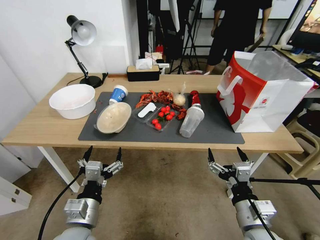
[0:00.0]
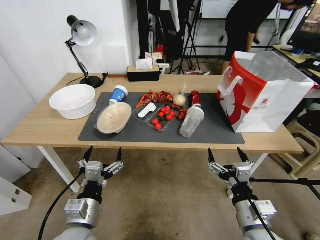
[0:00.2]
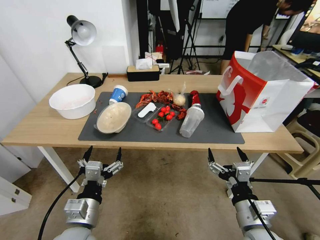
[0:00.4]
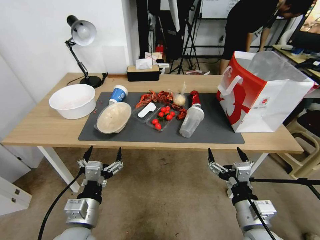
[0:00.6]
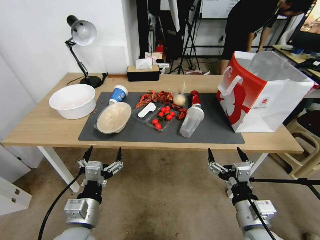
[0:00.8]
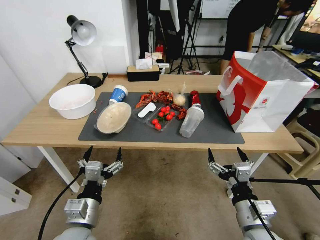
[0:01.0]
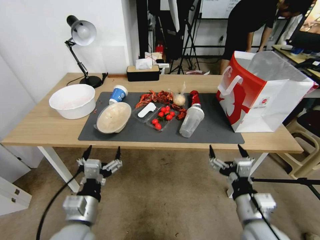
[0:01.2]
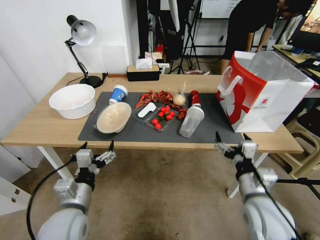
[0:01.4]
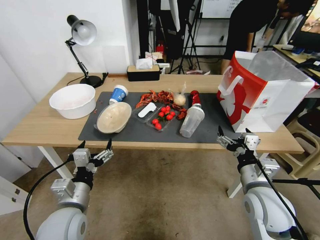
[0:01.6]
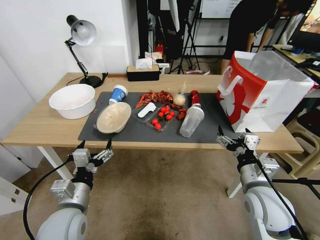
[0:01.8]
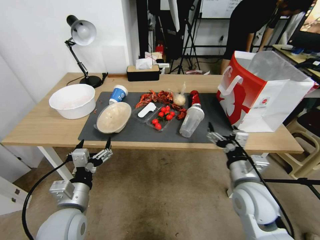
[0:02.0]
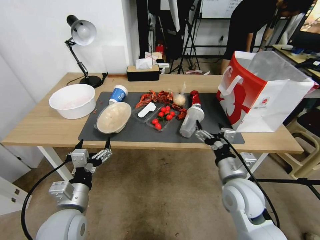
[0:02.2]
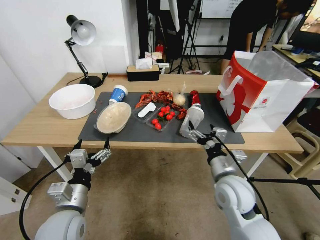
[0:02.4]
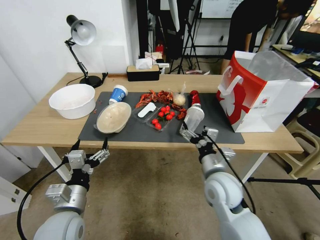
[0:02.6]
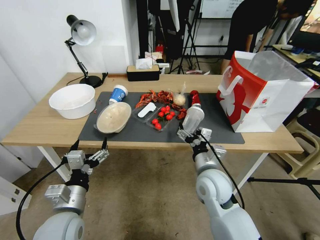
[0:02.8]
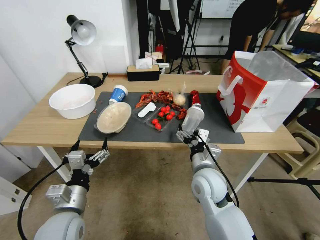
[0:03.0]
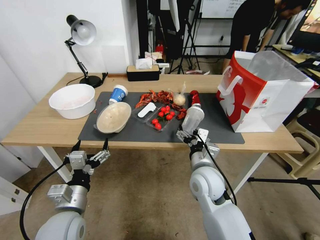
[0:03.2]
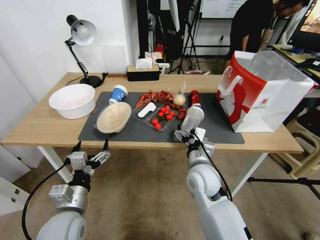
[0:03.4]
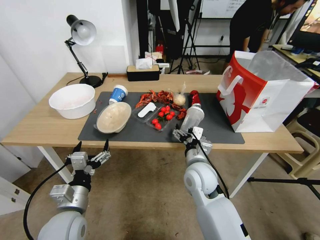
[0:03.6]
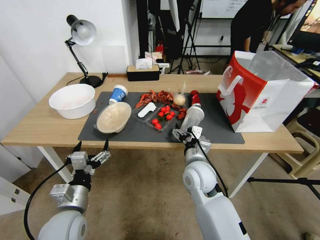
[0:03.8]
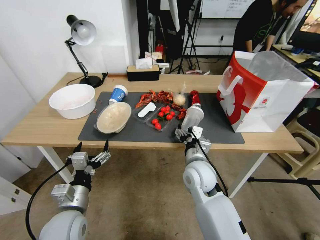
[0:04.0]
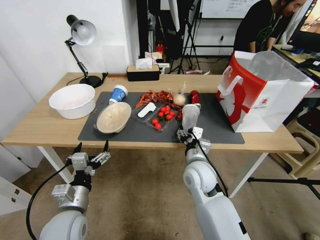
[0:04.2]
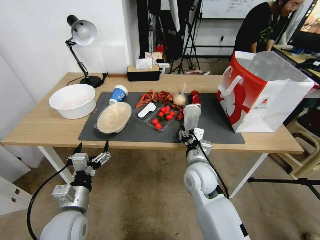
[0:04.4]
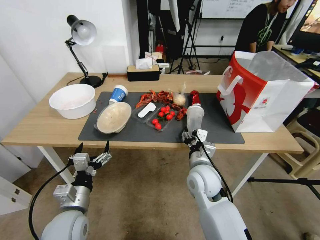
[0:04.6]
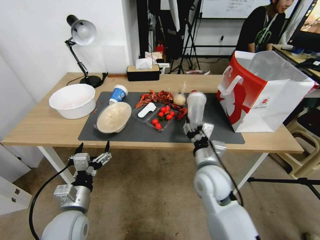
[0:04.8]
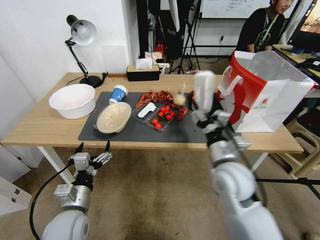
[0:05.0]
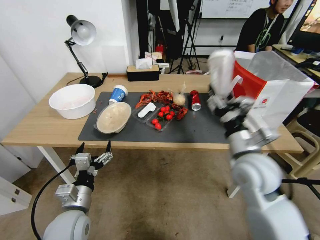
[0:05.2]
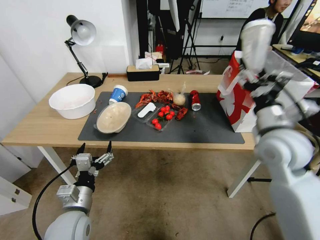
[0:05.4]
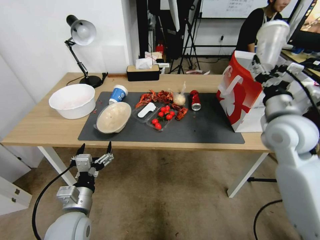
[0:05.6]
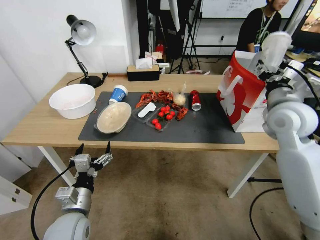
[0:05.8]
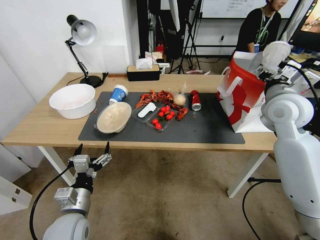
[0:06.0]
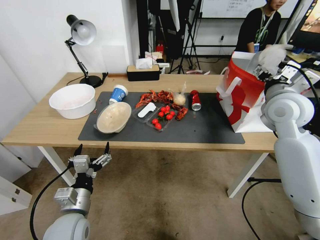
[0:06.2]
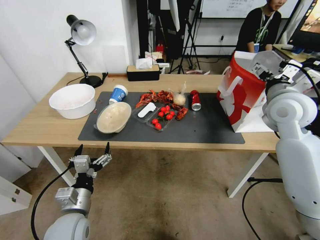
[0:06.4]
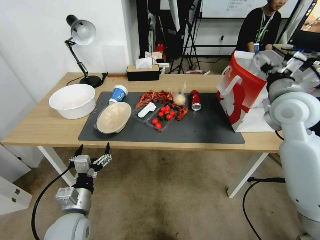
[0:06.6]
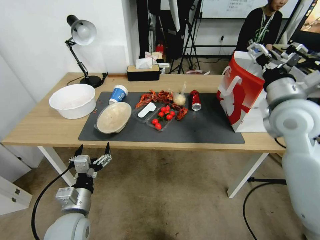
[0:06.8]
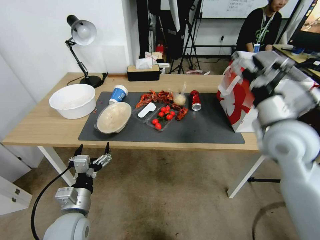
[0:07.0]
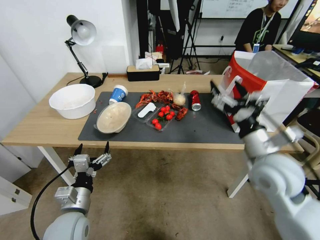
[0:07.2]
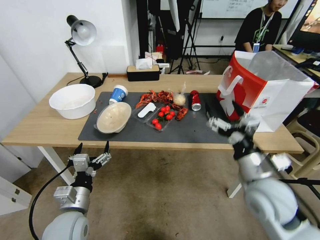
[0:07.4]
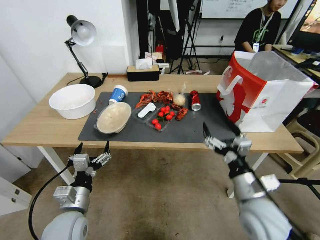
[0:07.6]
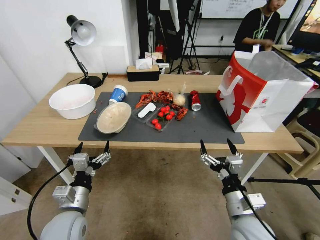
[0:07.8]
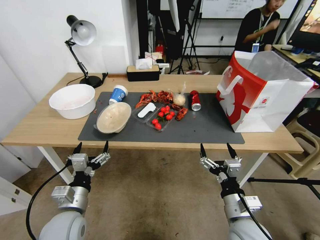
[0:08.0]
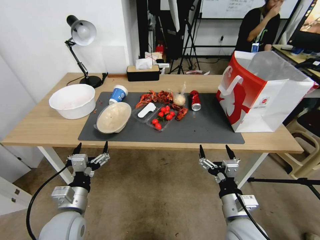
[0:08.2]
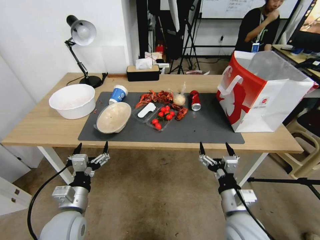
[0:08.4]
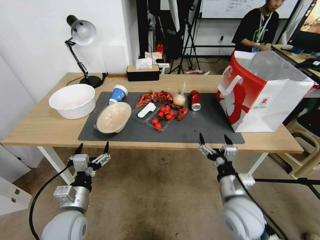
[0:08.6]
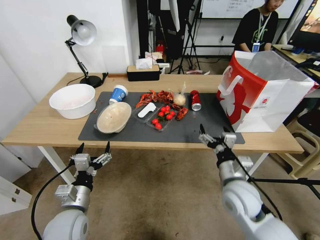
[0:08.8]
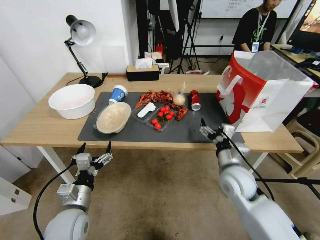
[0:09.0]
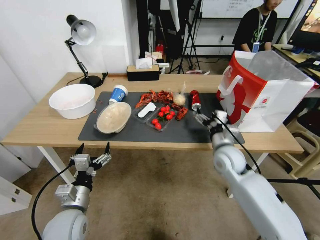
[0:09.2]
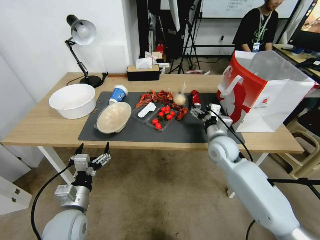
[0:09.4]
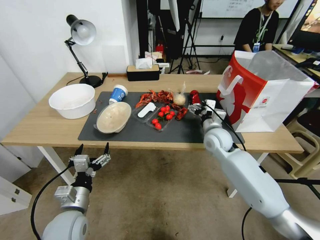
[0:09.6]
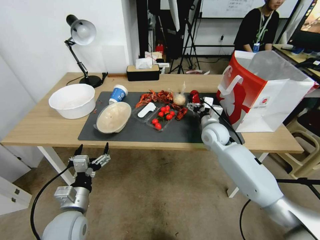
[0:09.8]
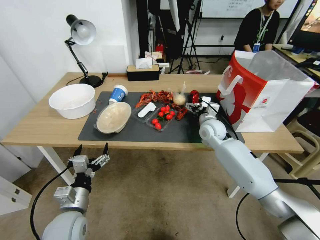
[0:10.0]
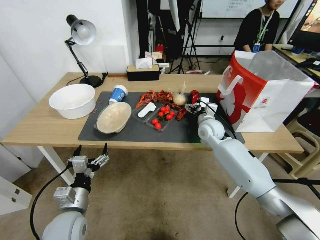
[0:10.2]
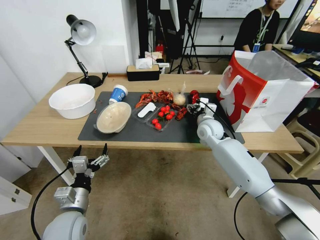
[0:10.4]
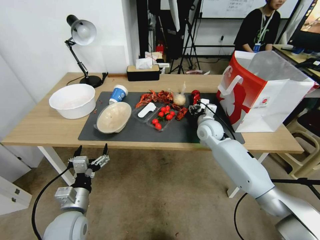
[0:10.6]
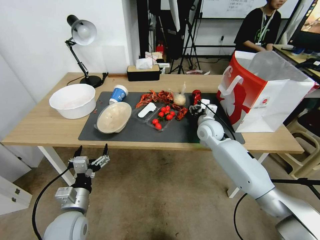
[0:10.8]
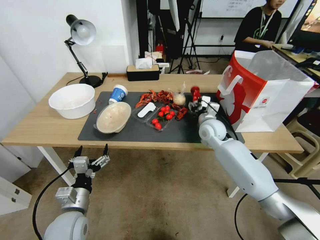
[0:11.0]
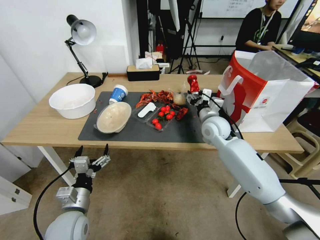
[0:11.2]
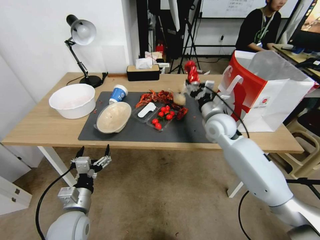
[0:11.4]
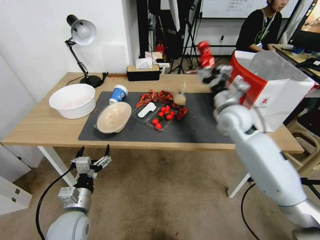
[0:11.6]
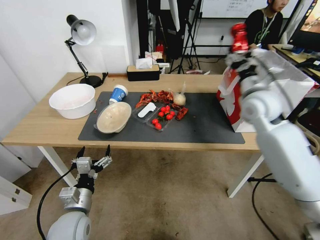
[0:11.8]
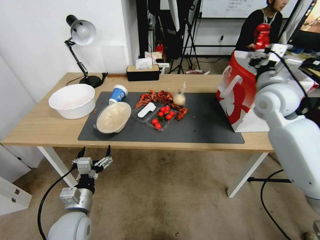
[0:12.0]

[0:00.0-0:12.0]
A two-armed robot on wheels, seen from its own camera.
0:01.6 to 0:03.0: The right gripper goes about 15 cm to the left and forward.
0:03.0 to 0:04.4: The right gripper closes.
0:04.4 to 0:06.0: The right gripper travels upward, to the right and forward by some 30 cm.
0:06.0 to 0:07.6: The right gripper heads backward and downward, covering about 30 cm, and opens up.
0:07.6 to 0:09.0: The right gripper shifts about 10 cm forward.
0:09.0 to 0:10.4: The right gripper shifts some 20 cm forward.
0:10.4 to 0:12.0: The right gripper is displaced upward and to the right by approximately 15 cm.

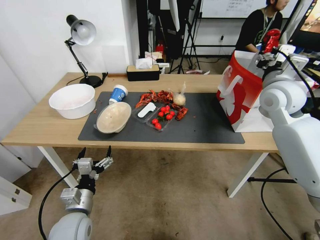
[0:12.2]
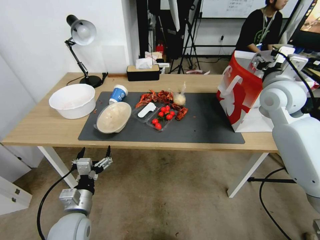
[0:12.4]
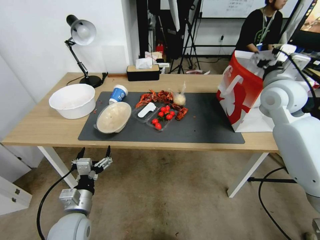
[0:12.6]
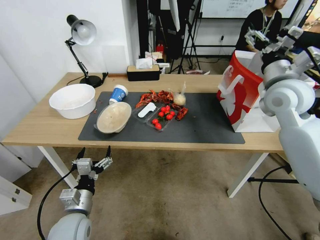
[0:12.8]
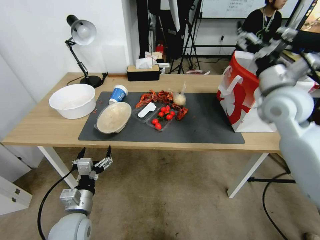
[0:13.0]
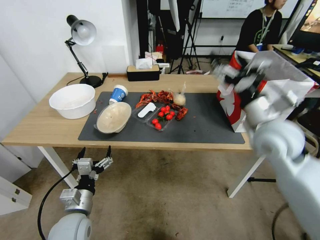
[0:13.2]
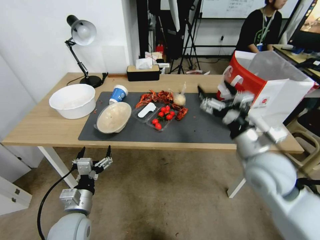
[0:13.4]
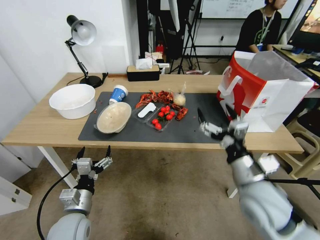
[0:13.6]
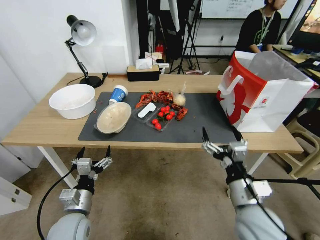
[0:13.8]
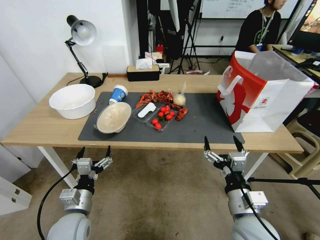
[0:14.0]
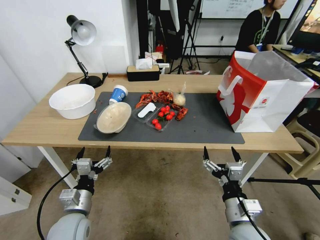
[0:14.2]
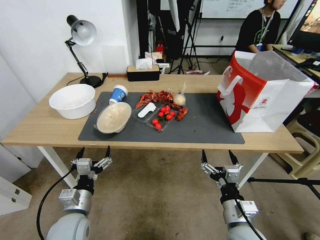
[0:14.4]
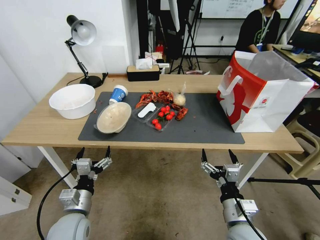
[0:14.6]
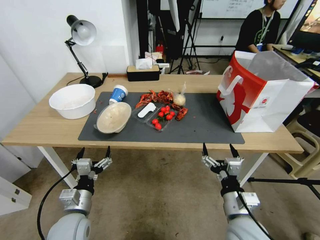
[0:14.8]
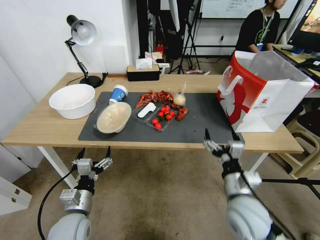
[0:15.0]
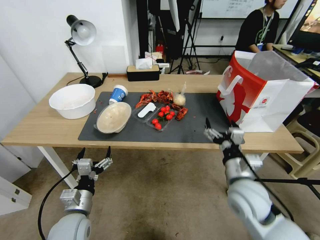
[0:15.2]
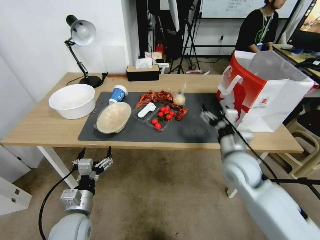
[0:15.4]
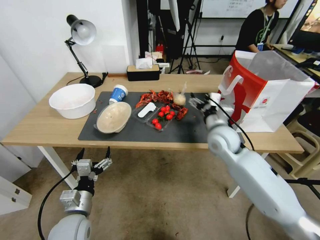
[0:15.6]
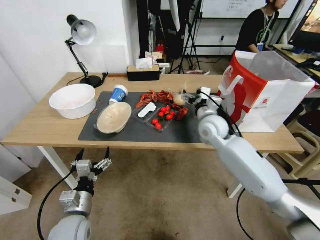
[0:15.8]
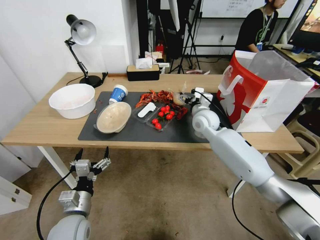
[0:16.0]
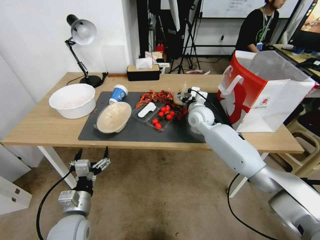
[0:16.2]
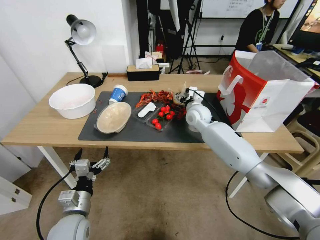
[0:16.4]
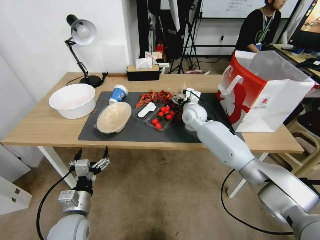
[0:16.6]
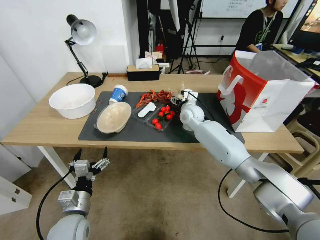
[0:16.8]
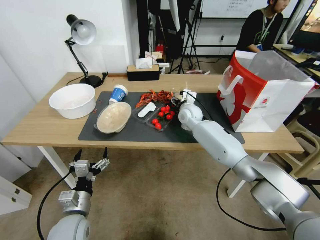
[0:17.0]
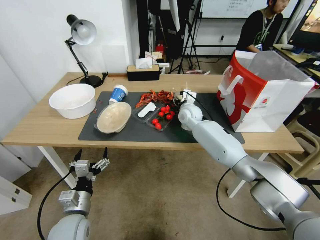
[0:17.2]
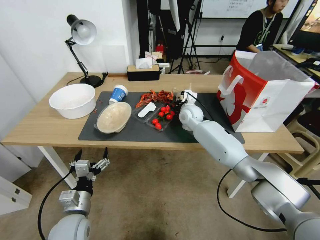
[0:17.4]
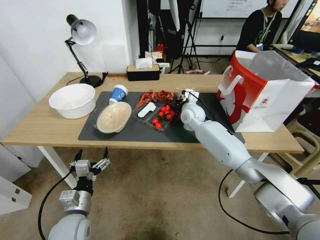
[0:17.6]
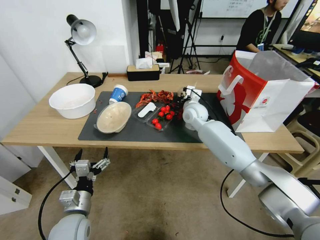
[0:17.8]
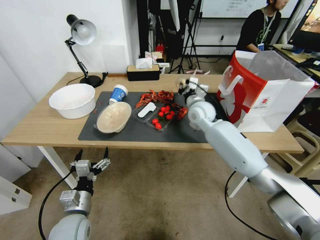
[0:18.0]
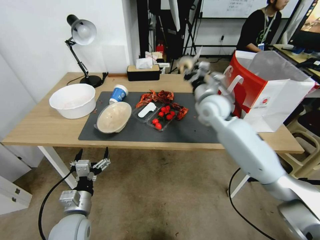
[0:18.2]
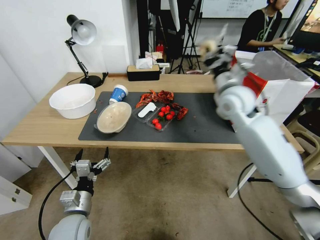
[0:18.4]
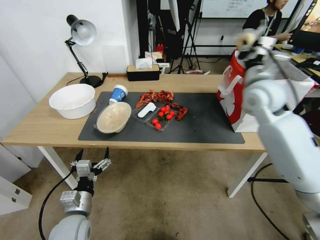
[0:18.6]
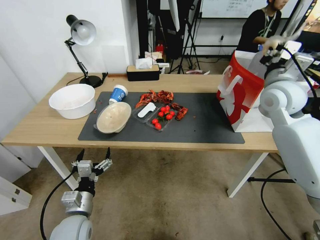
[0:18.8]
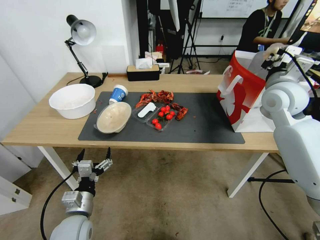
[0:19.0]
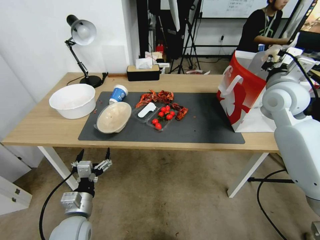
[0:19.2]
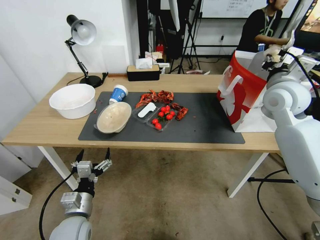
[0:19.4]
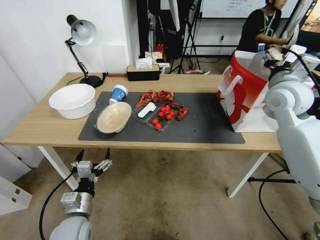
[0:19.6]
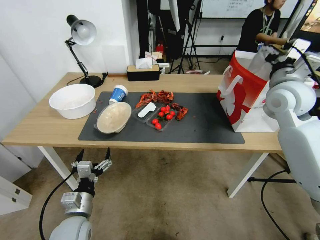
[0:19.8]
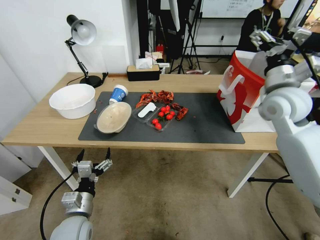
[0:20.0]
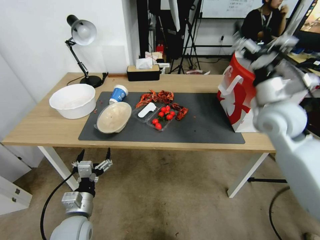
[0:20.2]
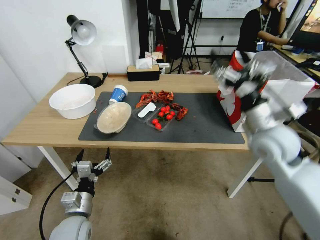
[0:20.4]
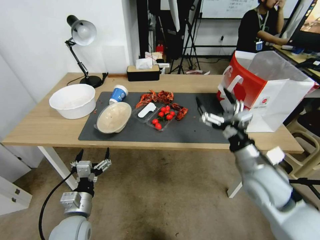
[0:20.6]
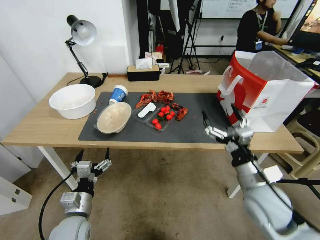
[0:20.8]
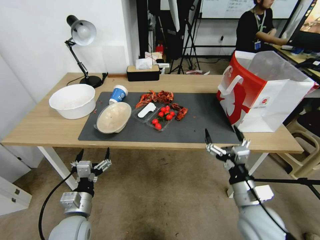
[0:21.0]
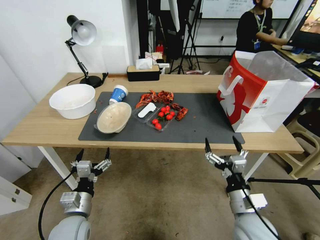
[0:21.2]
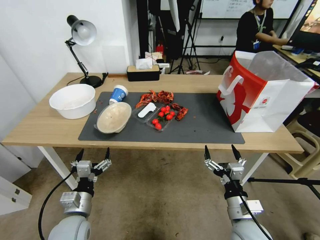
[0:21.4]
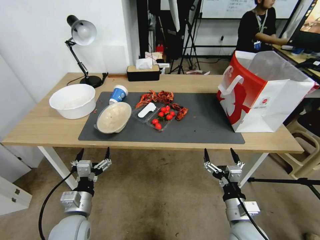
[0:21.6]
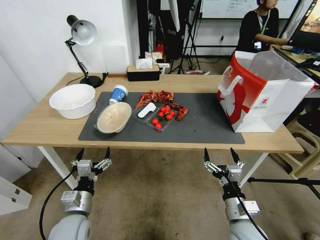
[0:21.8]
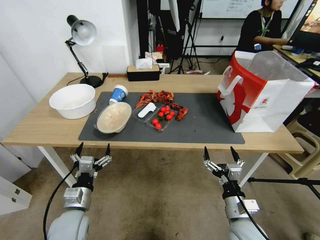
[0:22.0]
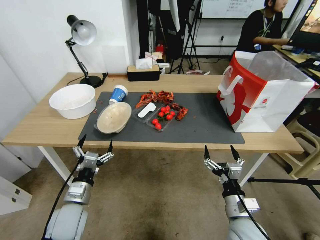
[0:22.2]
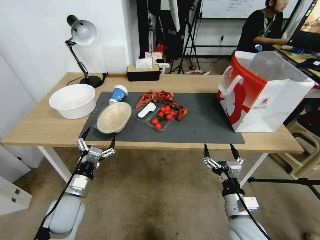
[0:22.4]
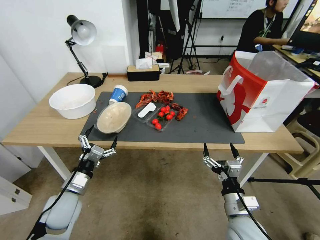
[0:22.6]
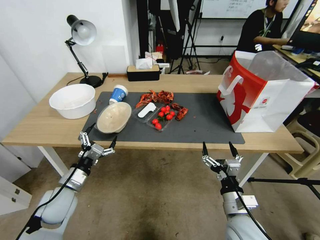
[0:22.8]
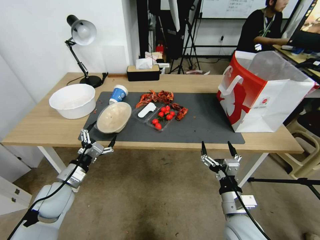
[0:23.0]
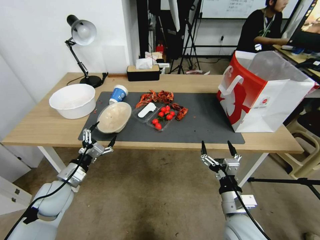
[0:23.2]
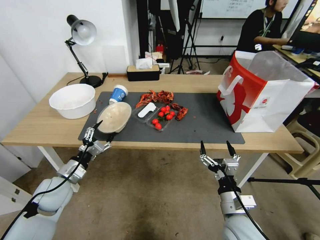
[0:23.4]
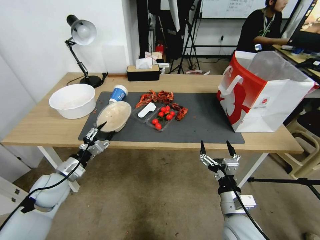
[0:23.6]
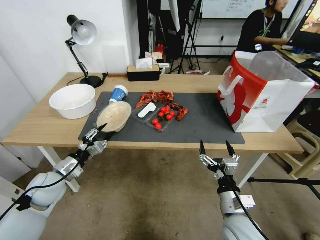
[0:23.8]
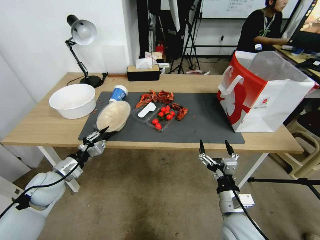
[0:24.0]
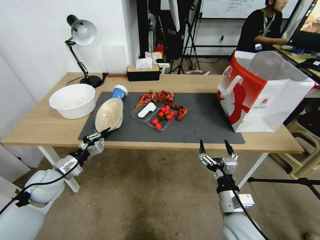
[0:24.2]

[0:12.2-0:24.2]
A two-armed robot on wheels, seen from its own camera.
0:12.2 to 0:13.8: The right gripper moves backward and downward, approximately 30 cm, and opens up.
0:13.8 to 0:15.2: The right gripper goes roughly 5 cm forward.
0:15.2 to 0:16.6: The right gripper goes about 30 cm forward.
0:16.6 to 0:18.2: The right gripper closes up.
0:18.2 to 0:19.8: The right gripper heads to the right, upward and backward, covering about 25 cm, and opens up.
0:19.8 to 0:21.2: The right gripper shifts roughly 35 cm downward and backward.
0:21.2 to 0:22.6: The left gripper goes about 5 cm forward.
0:22.6 to 0:24.2: The left gripper goes roughly 10 cm to the left and forward, and closes up.
